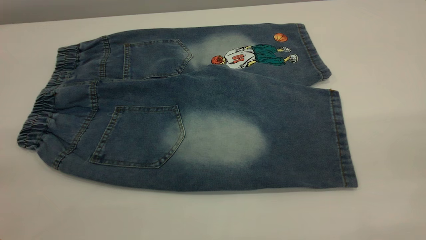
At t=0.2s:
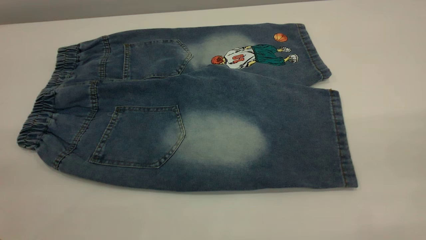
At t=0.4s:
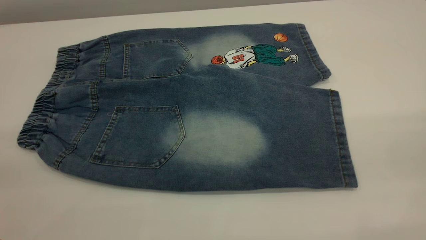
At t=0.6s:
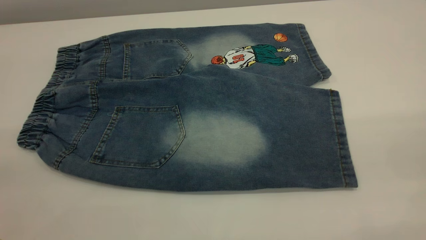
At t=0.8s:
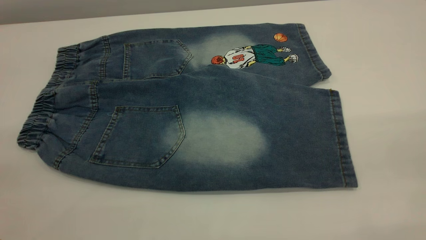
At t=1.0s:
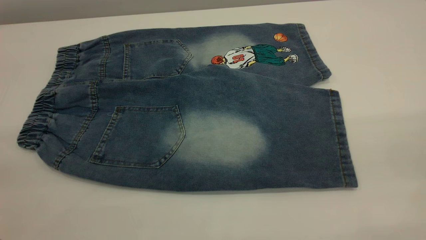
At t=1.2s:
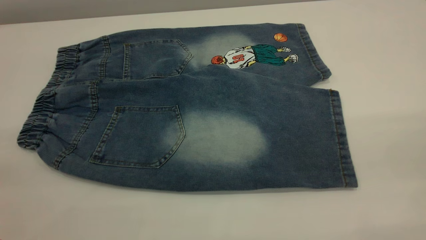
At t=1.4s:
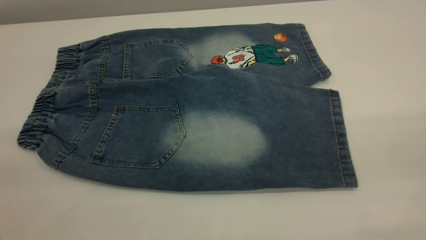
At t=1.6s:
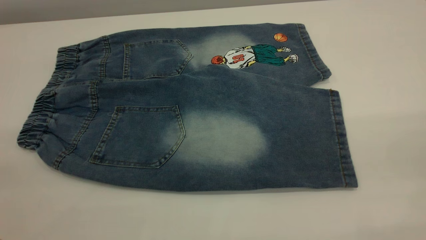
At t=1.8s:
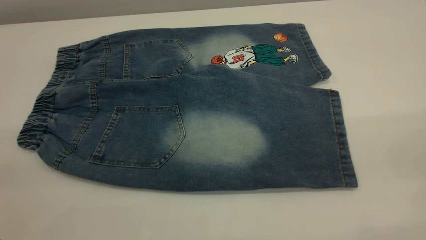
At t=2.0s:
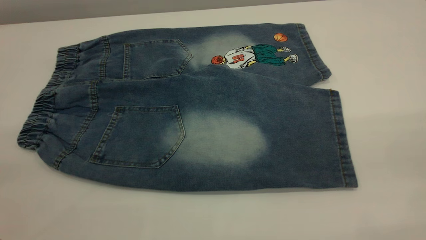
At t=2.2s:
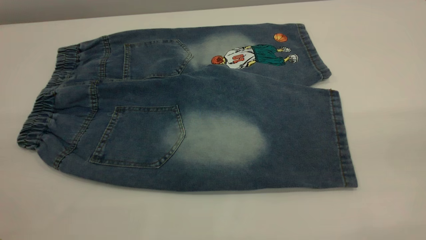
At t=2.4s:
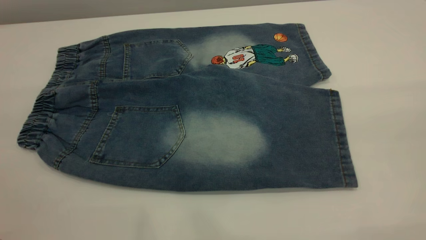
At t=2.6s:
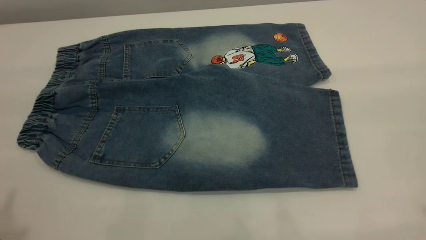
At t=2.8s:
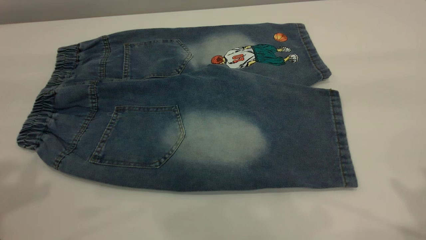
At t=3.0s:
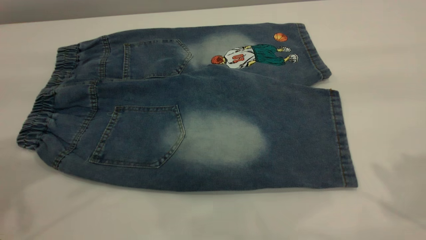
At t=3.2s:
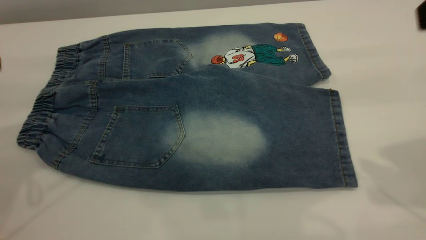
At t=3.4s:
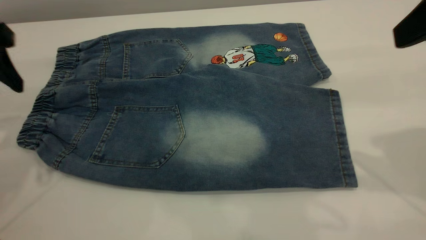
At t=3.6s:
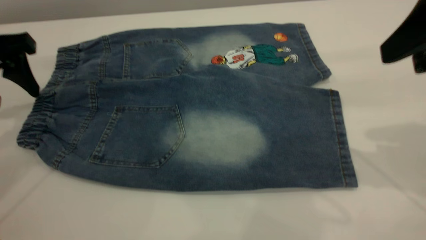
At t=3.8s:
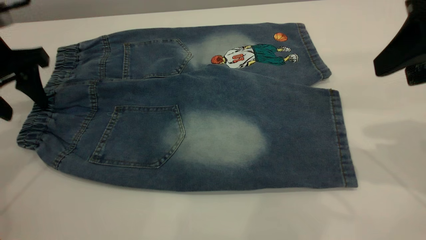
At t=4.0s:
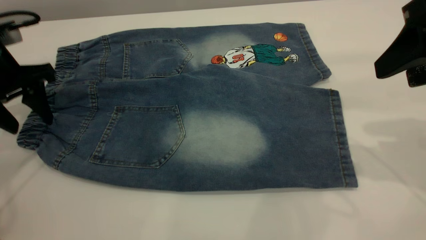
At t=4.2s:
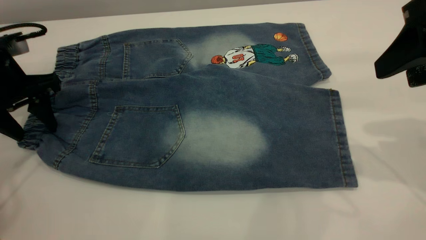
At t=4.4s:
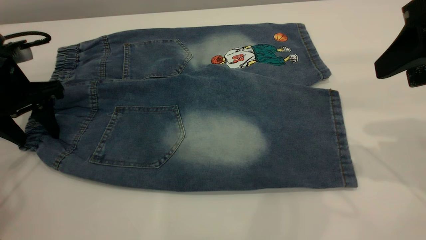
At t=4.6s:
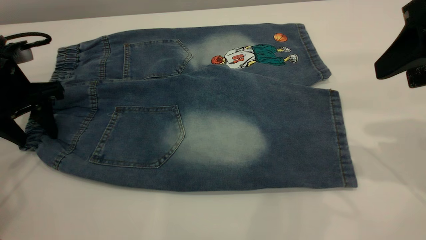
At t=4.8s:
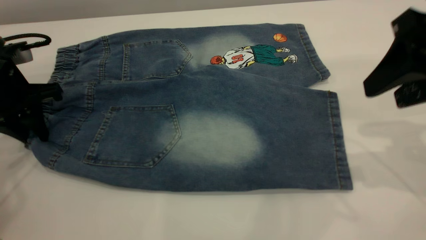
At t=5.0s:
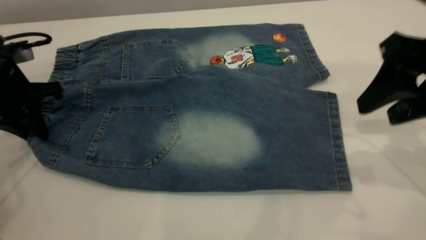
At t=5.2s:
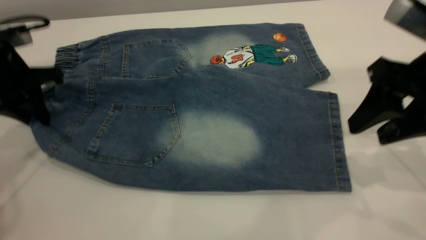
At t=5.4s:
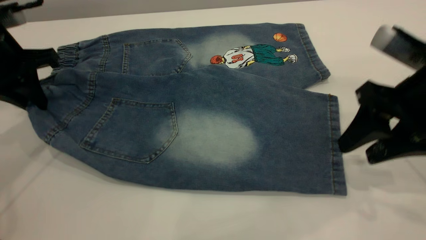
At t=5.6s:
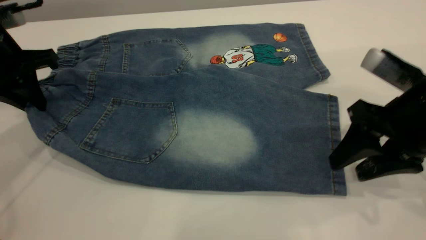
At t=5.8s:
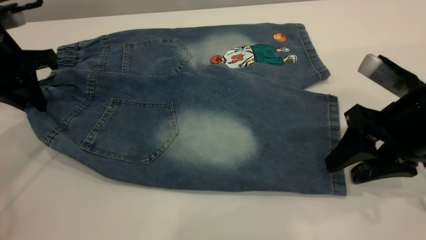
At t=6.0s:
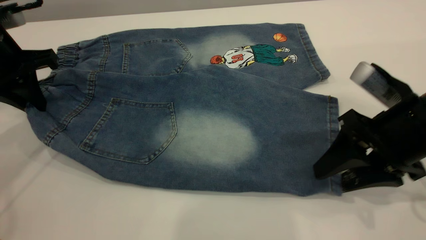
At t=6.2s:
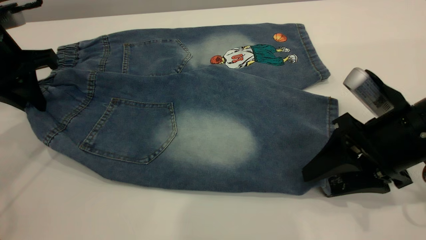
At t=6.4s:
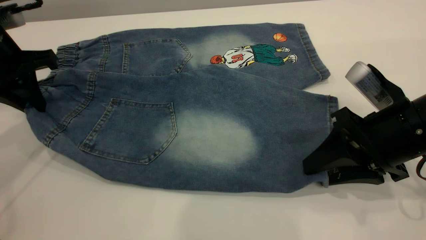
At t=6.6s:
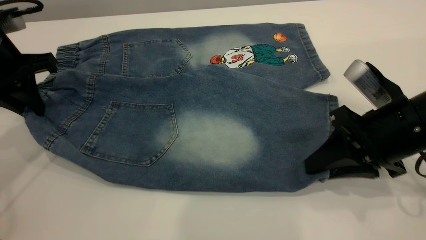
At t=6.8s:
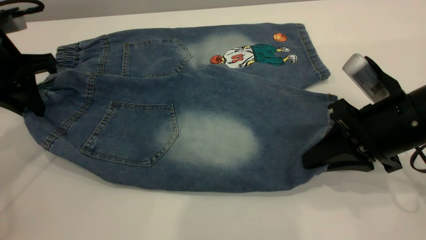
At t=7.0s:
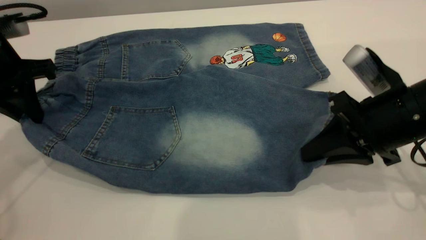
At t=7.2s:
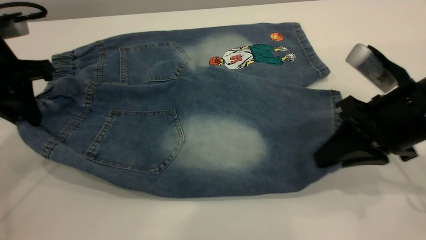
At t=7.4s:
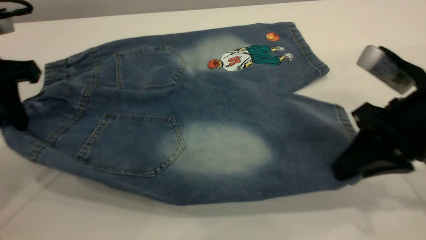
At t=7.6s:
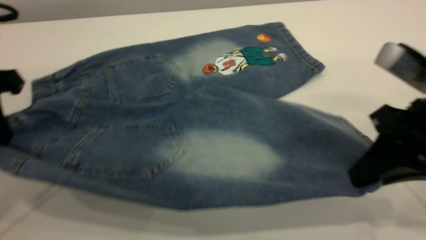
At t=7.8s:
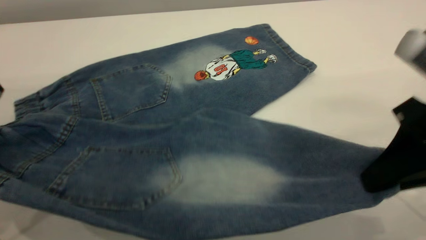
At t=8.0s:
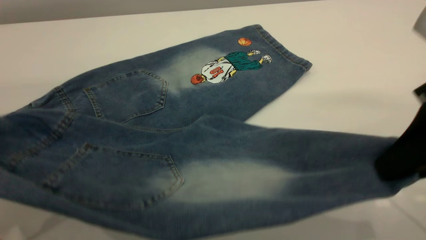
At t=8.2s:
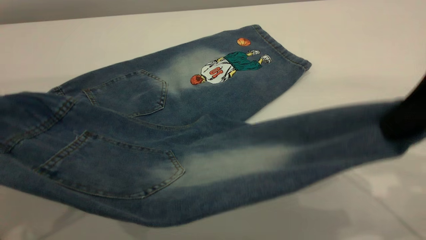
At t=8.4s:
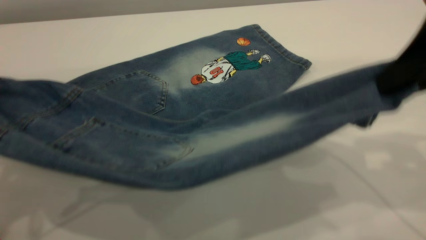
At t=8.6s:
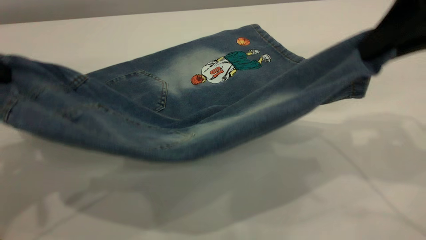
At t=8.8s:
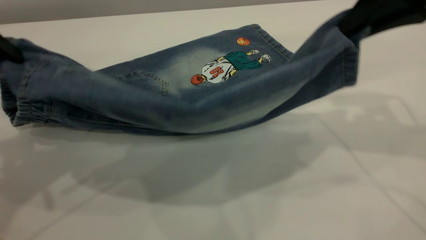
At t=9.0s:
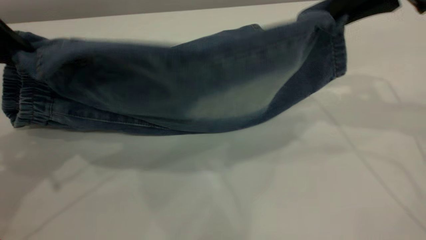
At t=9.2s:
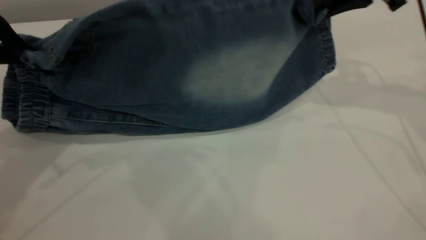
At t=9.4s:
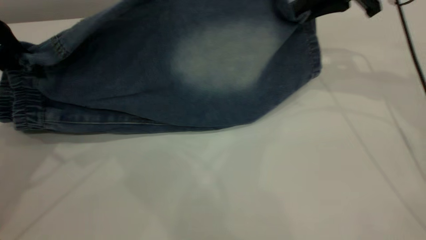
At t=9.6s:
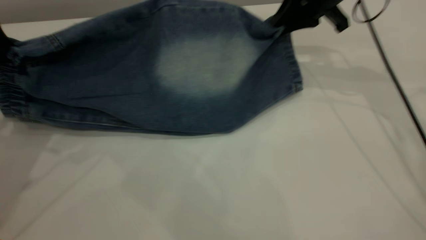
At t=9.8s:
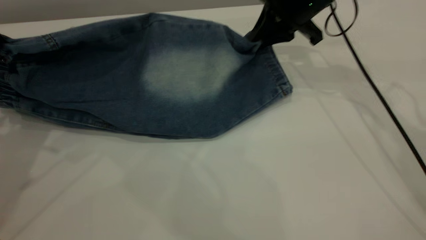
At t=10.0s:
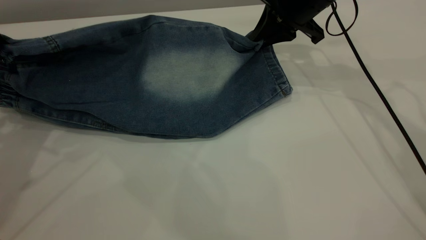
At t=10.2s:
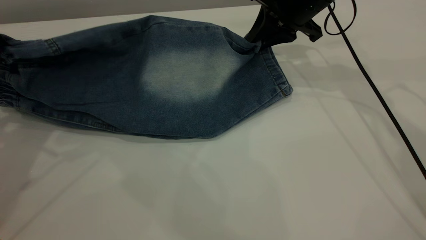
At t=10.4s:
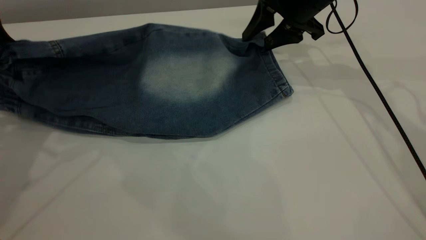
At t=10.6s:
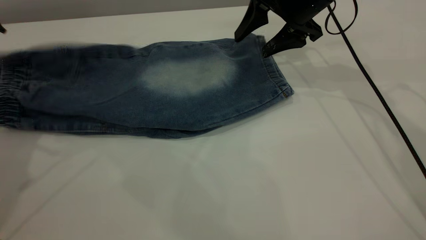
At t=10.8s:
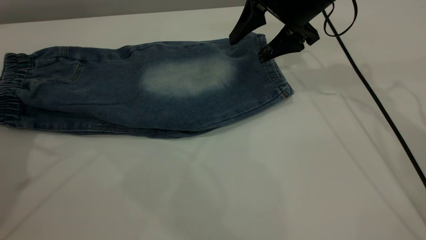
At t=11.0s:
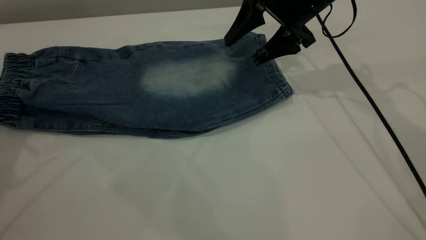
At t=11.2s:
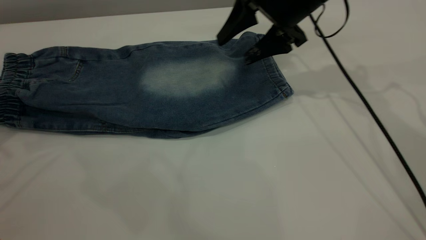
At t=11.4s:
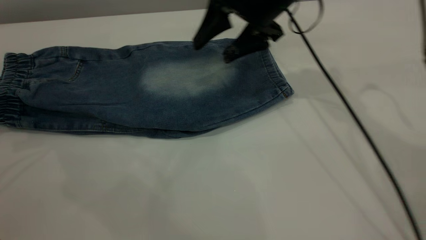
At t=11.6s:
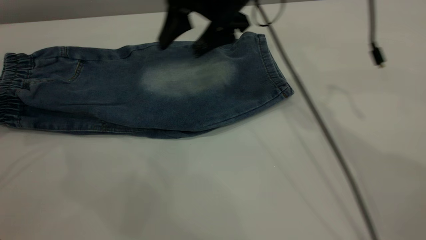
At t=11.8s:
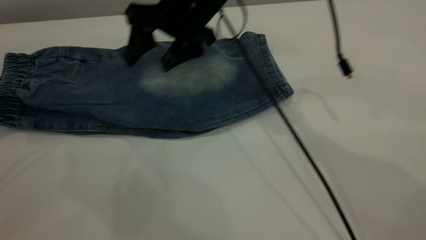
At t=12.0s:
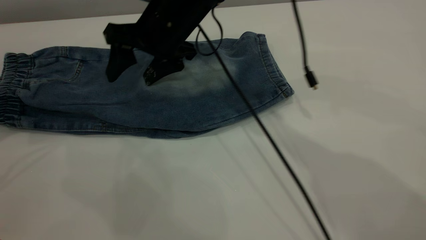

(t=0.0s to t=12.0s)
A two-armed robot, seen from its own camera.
Step, t=0.0s - t=11.6s: Fold the bottom of the pants upward.
t=0.0s - t=1.6s: Both grippers stay about where they are.
t=3.0s - t=4.4s: The left gripper is displaced downward and forward by roughly 20 cm. The right gripper is displaced downward and forward by some 10 cm.
t=4.4s - t=6.0s: The right gripper heads downward, covering roughly 15 cm; the left gripper is displaced upward by approximately 5 cm, and closes up.
t=6.0s - t=7.6s: The right gripper heads upward, covering about 5 cm, and closes up, while the left gripper moves backward, approximately 10 cm.
t=7.6s - t=9.0s: The right gripper goes approximately 20 cm forward and upward. Meanwhile the left gripper ends up about 5 cm from where it was.
t=9.0s - t=10.4s: The right gripper travels forward, downward and to the left by about 15 cm, and opens its fingers; the left gripper opens its fingers.
t=10.4s - t=12.0s: The right gripper travels to the left by about 20 cm, while the left gripper travels to the left by some 10 cm.

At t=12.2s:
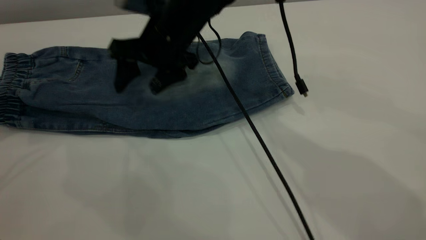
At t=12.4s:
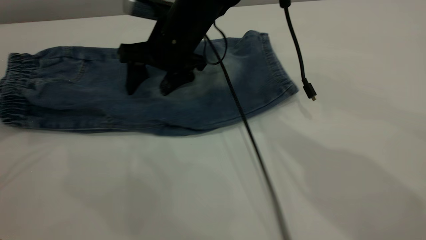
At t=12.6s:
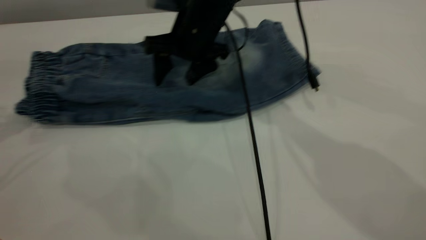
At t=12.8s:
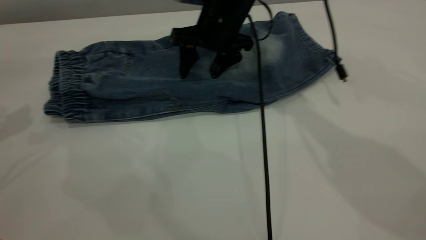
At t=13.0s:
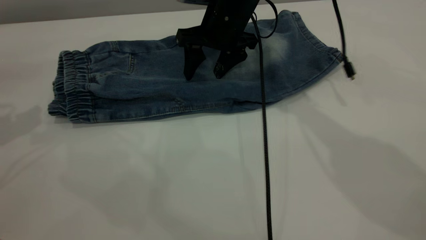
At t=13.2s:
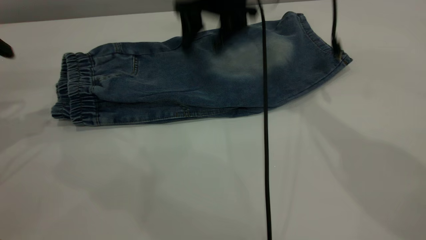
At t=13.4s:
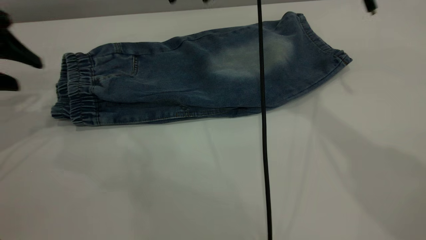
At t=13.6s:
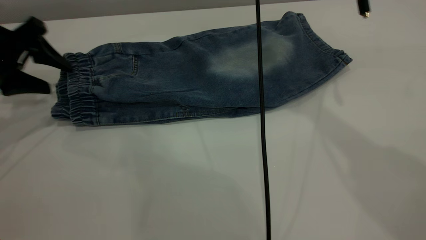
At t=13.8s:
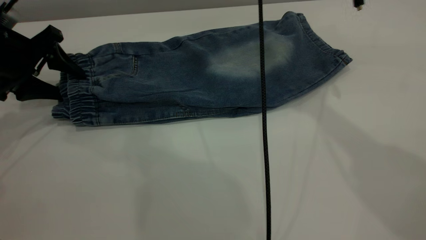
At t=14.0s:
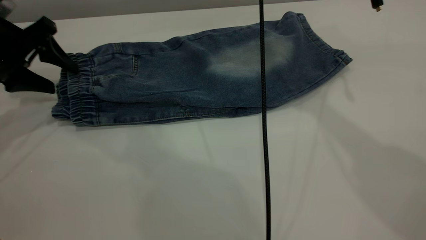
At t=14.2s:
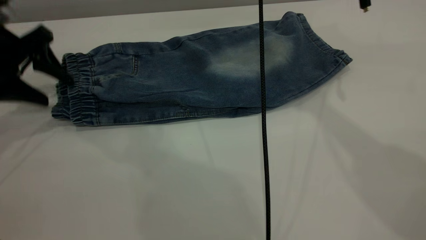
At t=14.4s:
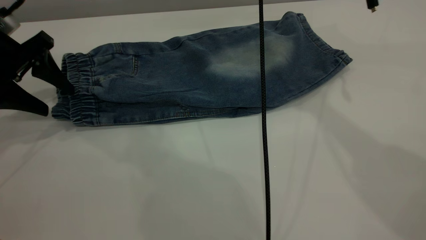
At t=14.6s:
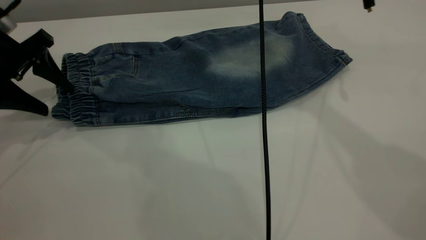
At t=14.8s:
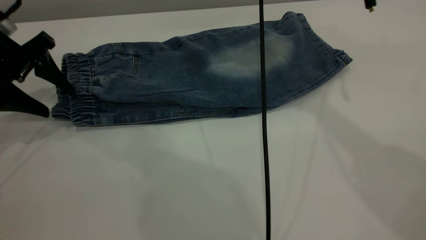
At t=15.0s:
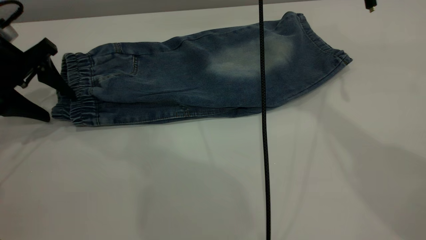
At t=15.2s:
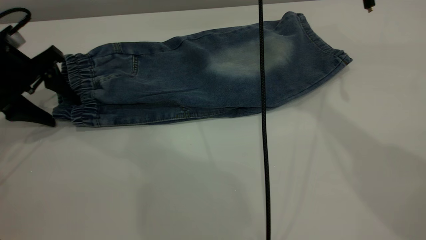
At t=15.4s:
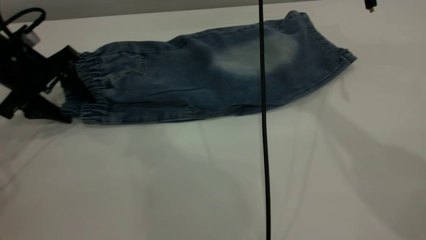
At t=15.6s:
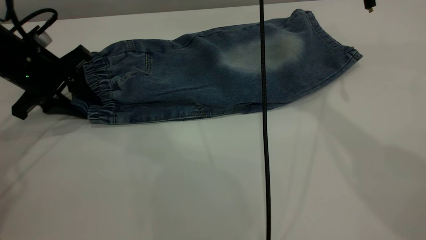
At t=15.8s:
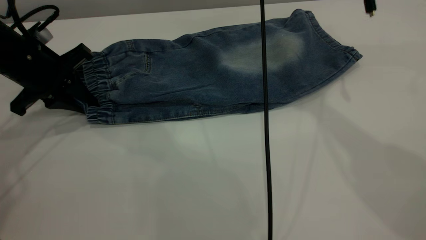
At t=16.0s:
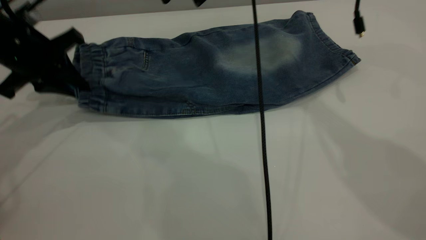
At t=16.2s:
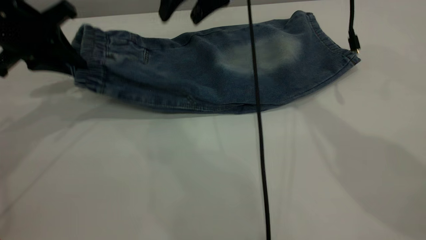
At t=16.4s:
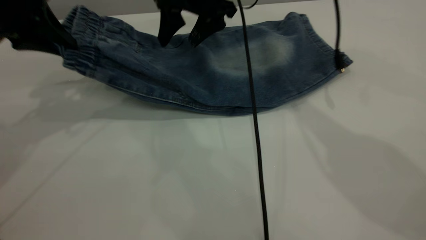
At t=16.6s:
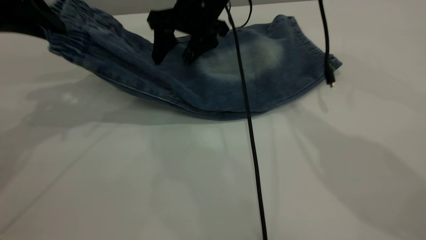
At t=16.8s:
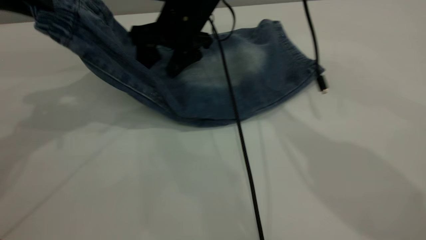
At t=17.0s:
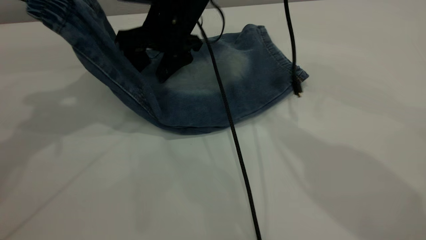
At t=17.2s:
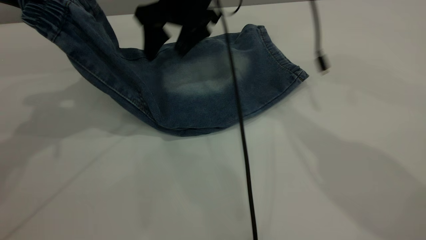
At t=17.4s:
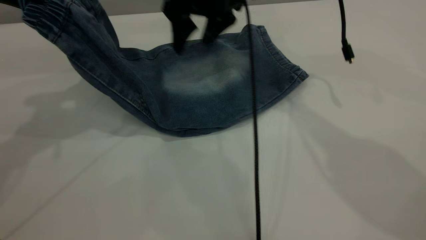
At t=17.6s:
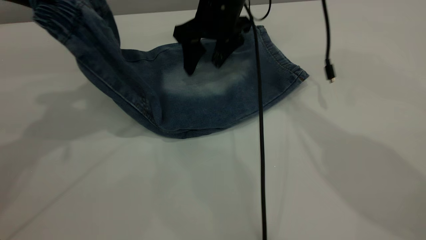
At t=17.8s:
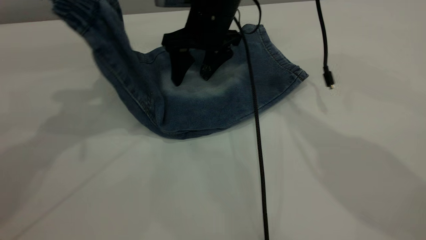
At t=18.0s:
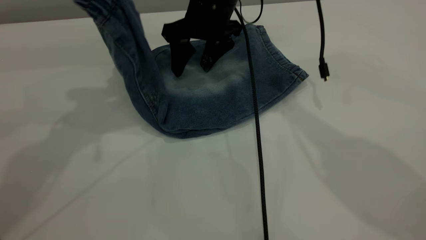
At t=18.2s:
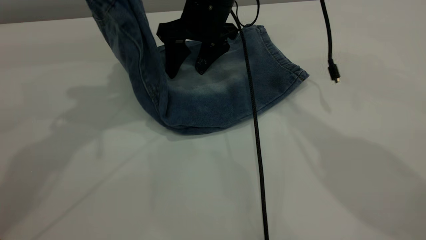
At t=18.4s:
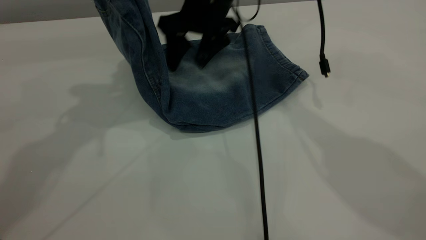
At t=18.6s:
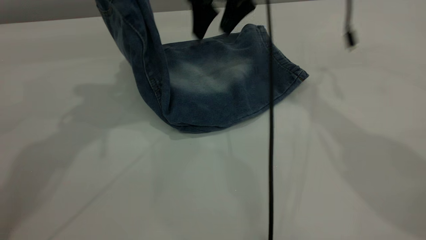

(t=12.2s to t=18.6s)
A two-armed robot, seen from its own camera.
t=12.2s - t=13.8s: The right gripper travels upward and to the right by about 20 cm. The left gripper shifts approximately 15 cm downward, forward and to the right.
t=13.8s - t=15.4s: The grippers make only small movements.
t=15.4s - t=17.0s: The right gripper is displaced downward and to the left by some 15 cm. The left gripper goes roughly 20 cm upward, and closes its fingers.
t=17.0s - t=18.6s: The right gripper shifts about 10 cm to the right and upward. Meanwhile the left gripper moves to the right, roughly 10 cm.
